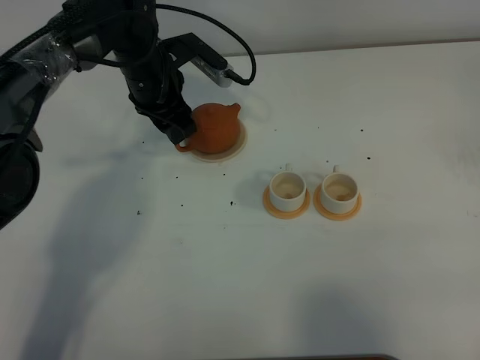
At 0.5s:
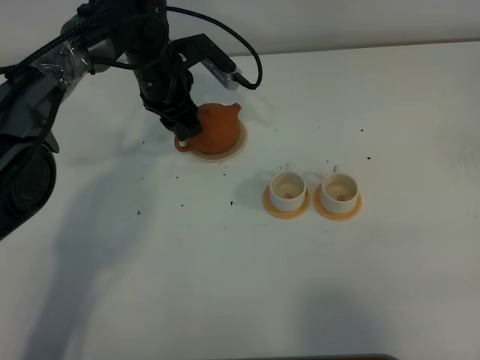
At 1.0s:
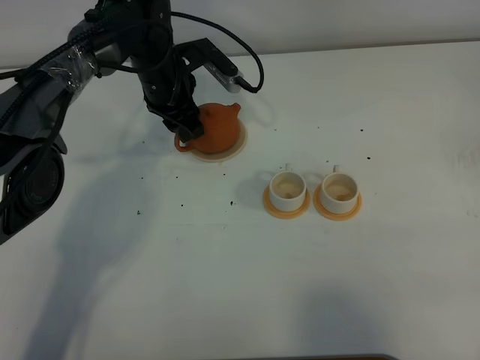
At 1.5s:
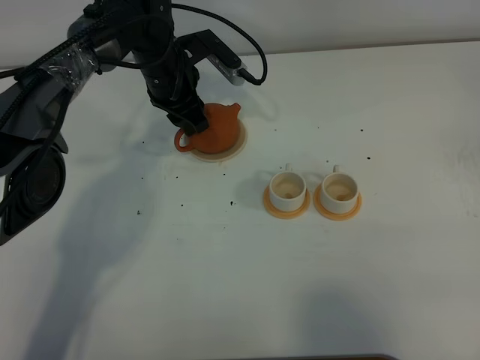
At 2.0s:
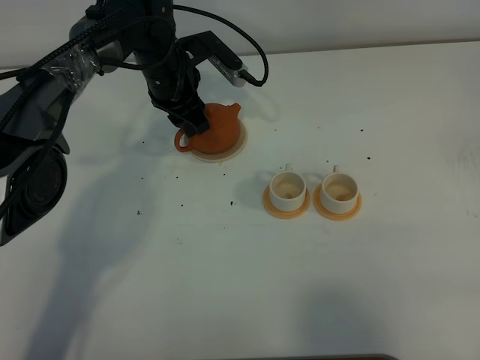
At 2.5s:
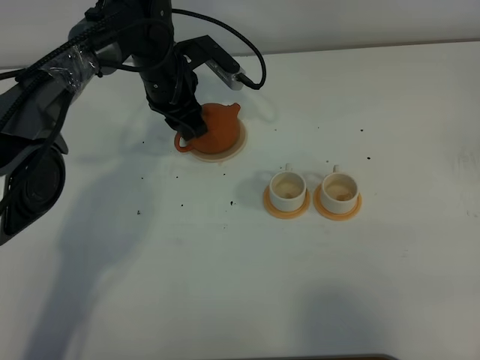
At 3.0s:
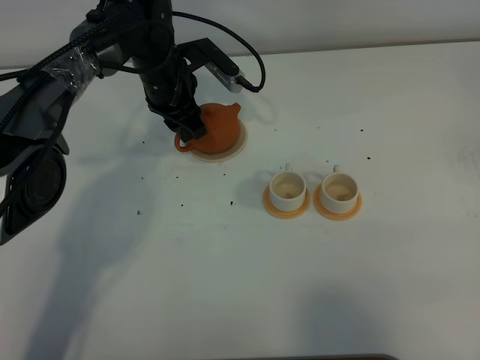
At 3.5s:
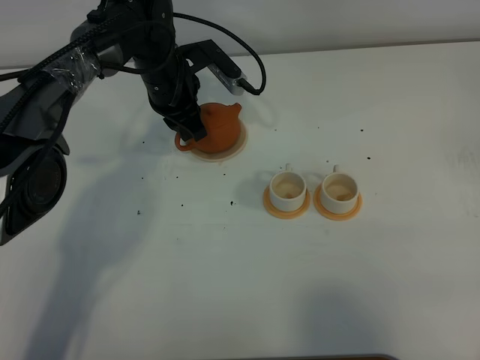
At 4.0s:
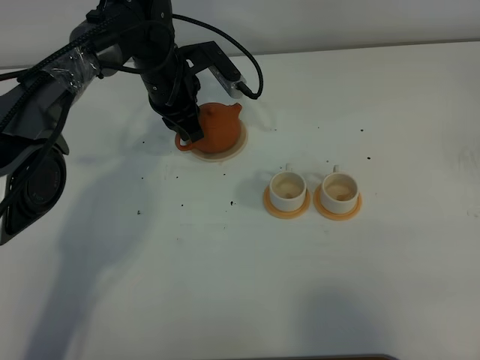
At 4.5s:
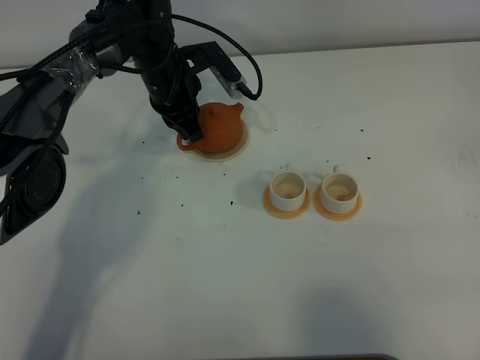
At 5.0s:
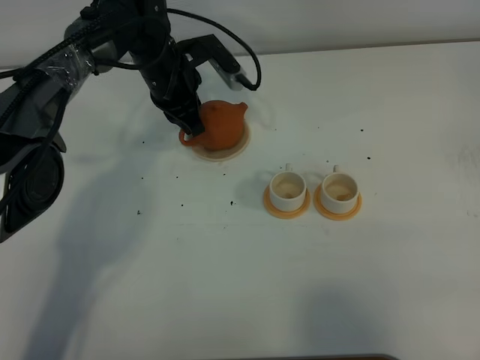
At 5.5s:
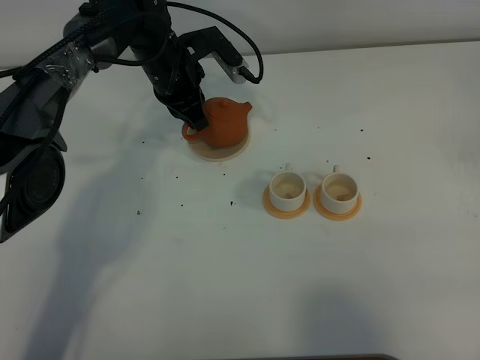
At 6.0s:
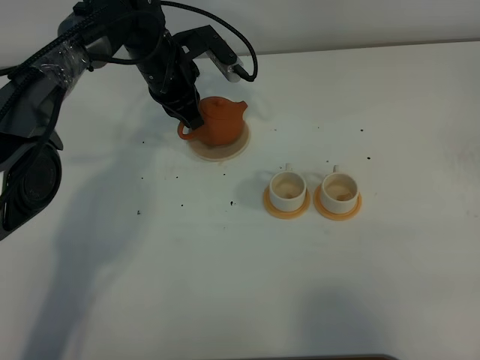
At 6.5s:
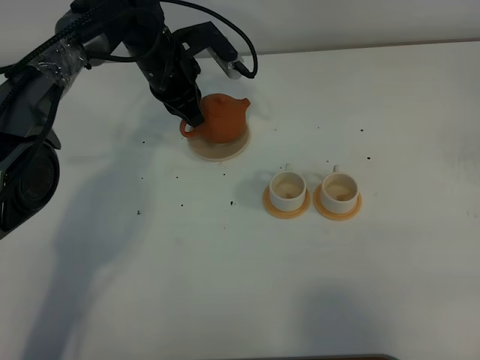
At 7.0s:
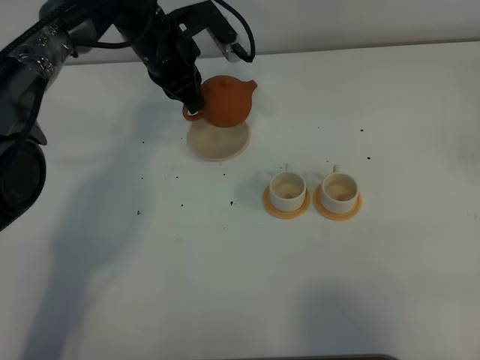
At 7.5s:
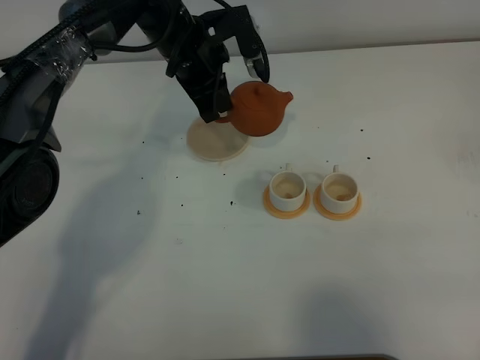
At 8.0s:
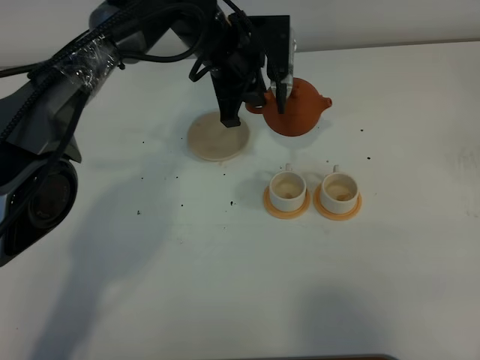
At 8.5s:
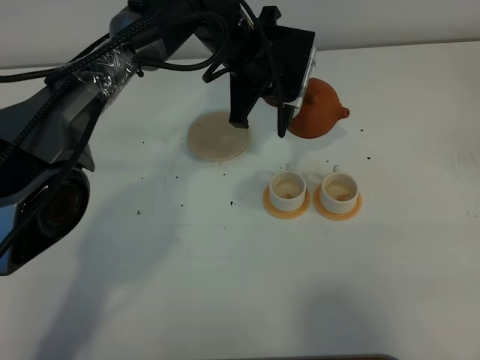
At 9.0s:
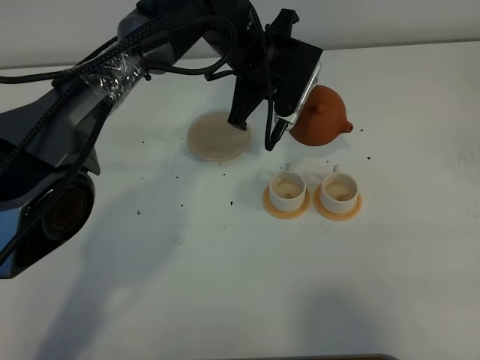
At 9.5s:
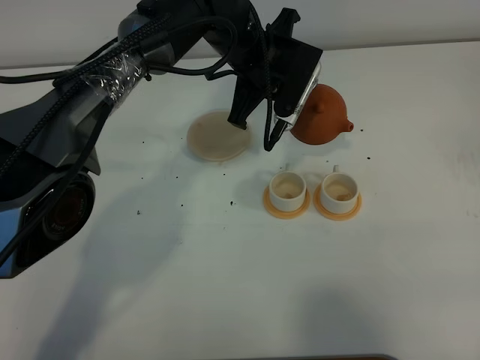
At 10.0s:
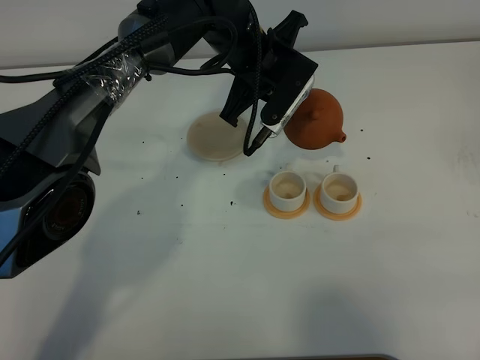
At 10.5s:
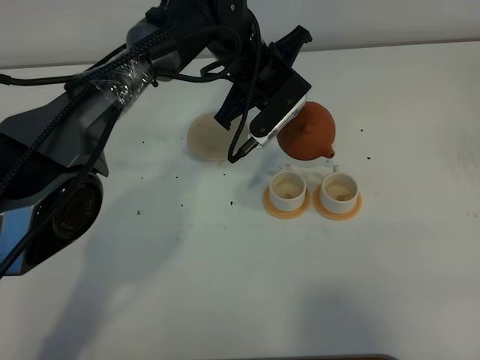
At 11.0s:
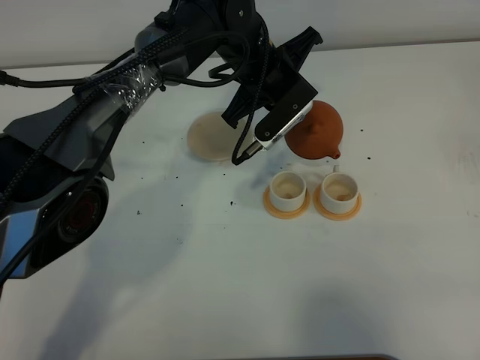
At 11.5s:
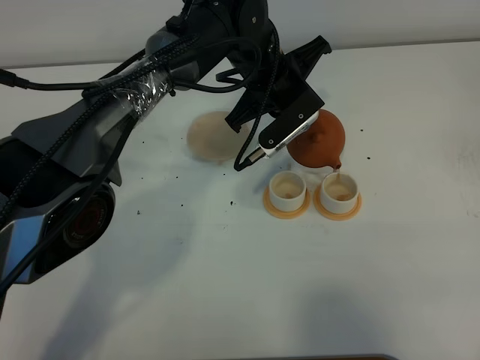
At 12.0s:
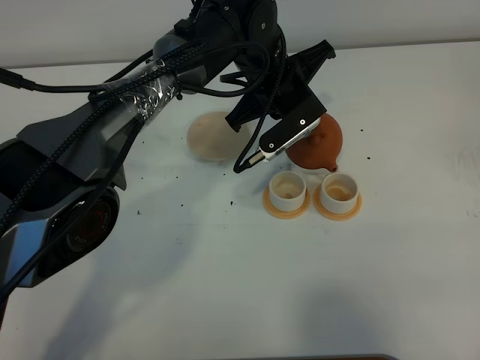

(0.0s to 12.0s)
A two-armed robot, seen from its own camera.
Task of the whole recording: grasp the brown teapot and pour the tea into the two white teacups one by one, put the brown teapot back in its original place.
Step, 0.0s - 6.5s: Pick up the teapot with the left gripper.
0.0s - 2.0s: There are only small adjustments of the grippers.
2.0s - 4.0s: The left gripper closes its fingers.
4.0s - 6.0s: There are only small adjustments of the grippers.
6.0s - 8.0s: The left gripper shifts roughly 10 cm to the right.
10.0s - 12.0s: There are only small adjustments of the grippers.

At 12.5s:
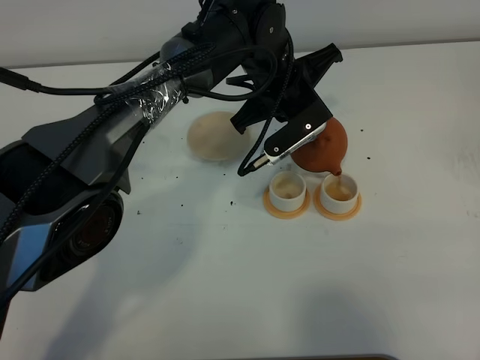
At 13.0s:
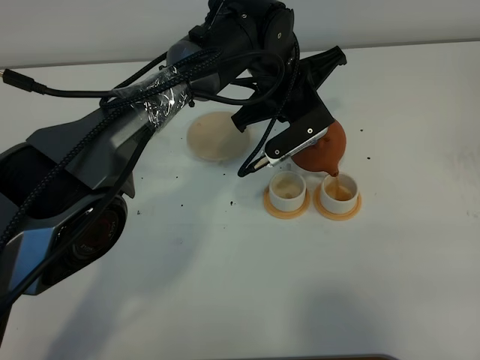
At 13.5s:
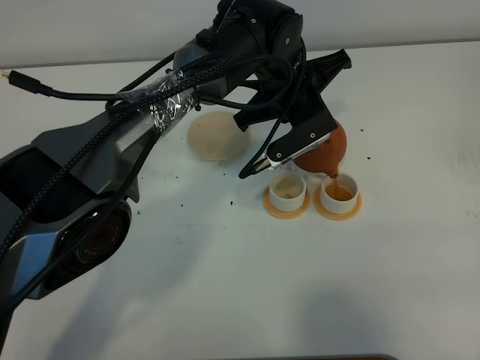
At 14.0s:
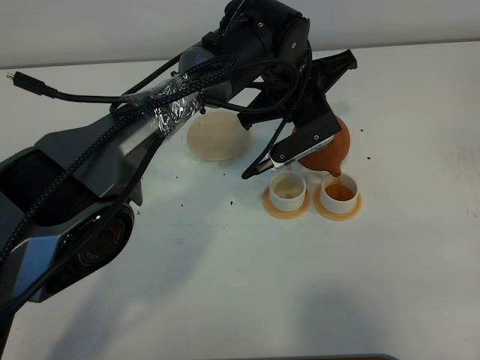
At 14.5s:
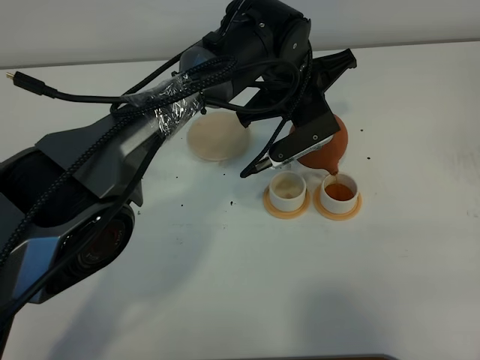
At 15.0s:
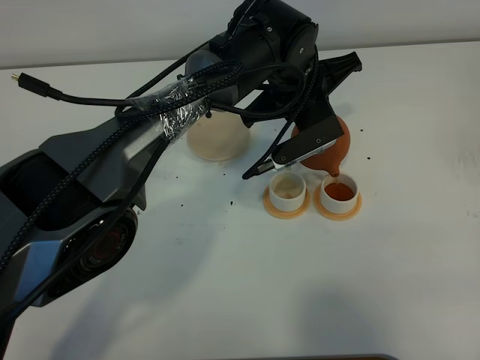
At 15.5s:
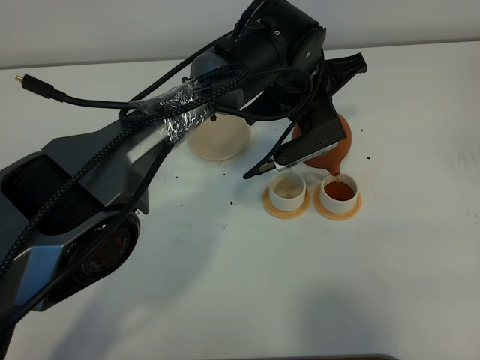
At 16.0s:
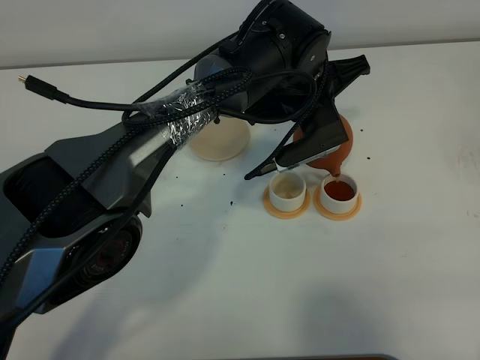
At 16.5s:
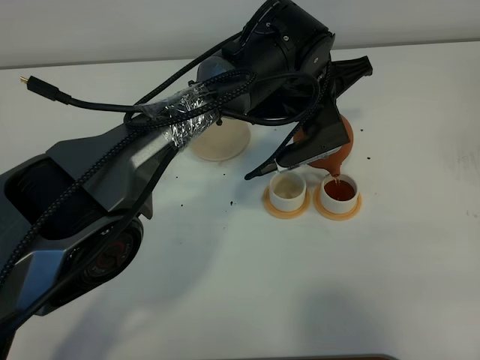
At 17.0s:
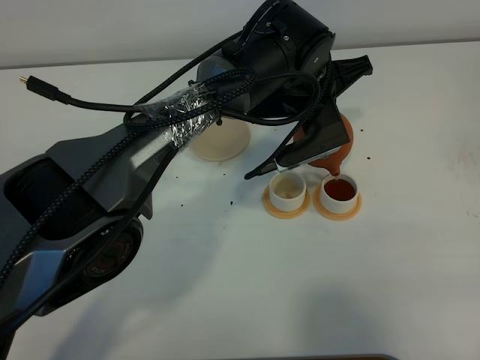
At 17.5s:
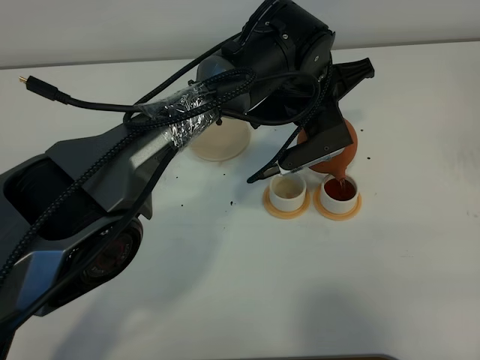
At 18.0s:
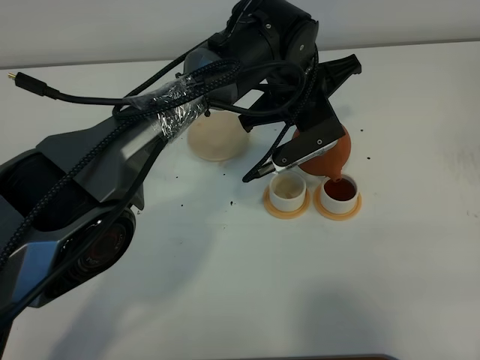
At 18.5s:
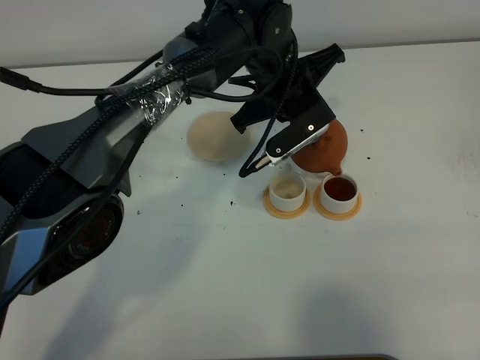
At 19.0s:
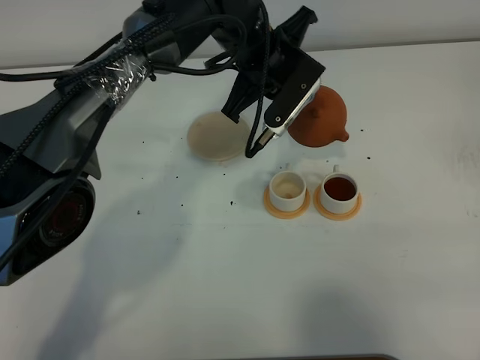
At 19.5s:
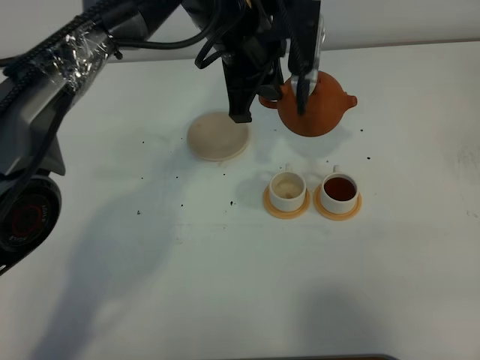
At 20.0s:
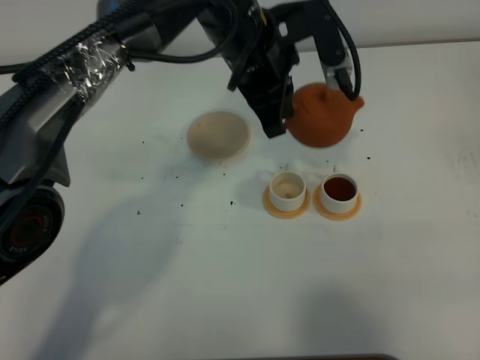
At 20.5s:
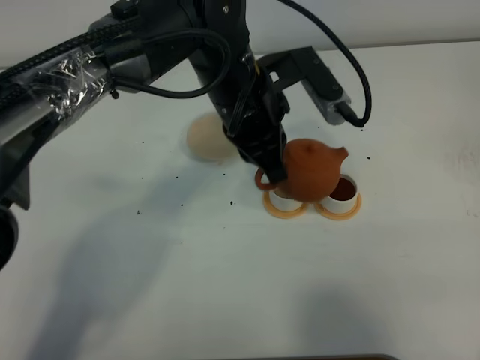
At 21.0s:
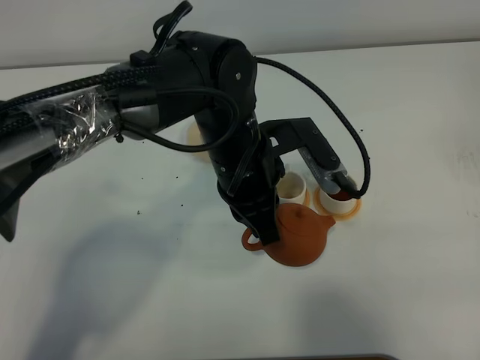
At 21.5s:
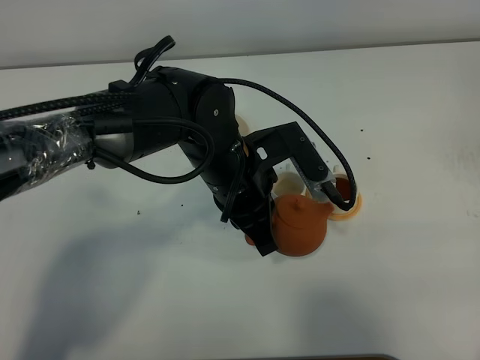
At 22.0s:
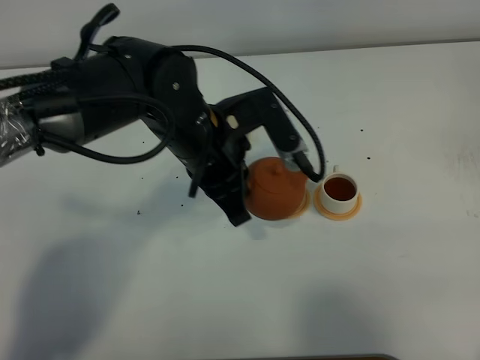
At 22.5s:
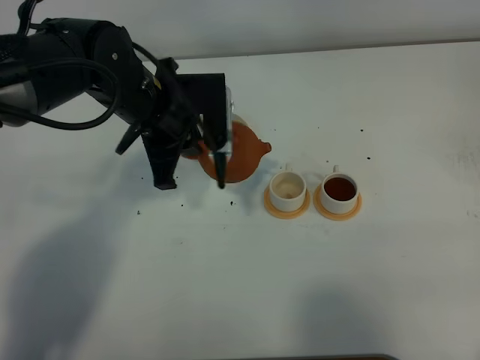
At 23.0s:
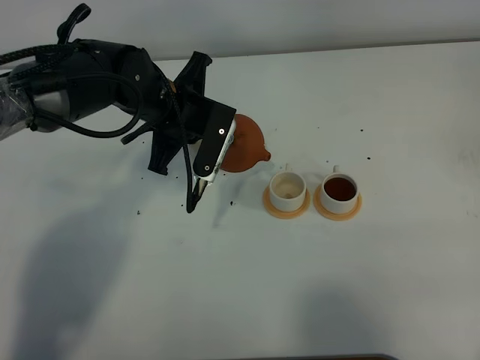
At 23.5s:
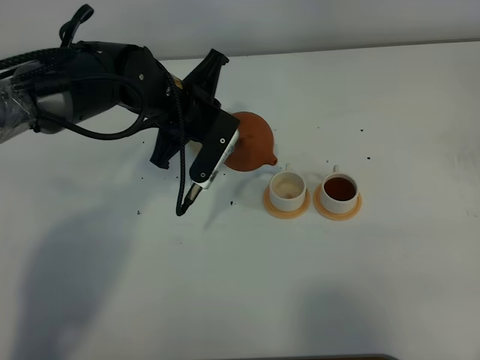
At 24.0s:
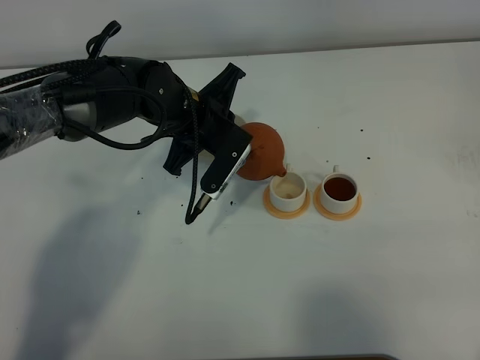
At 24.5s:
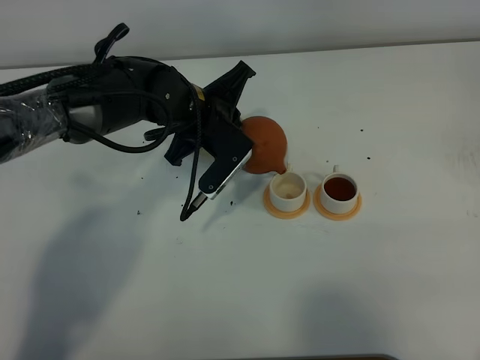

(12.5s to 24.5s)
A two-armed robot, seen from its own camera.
Task of the whole recording: grasp the brown teapot and pour the tea into the two white teacups one by one, put the brown teapot back in its original place.
Step, 12.5s - 18.5s: Pour tea into the teacup with the left gripper.
12.5s - 16.5s: The grippers move only a little.
18.5s - 20.5s: The left gripper shifts approximately 10 cm backward.
20.5s - 22.5s: The left gripper travels to the left by about 10 cm.
22.5s - 24.5s: The left gripper changes place by roughly 5 cm.

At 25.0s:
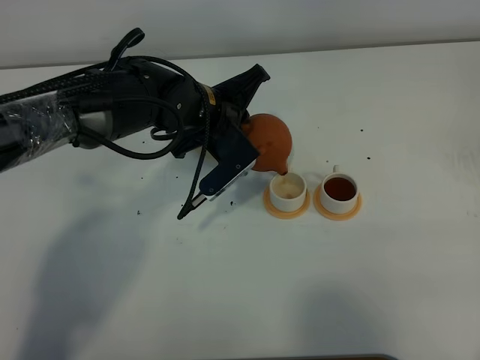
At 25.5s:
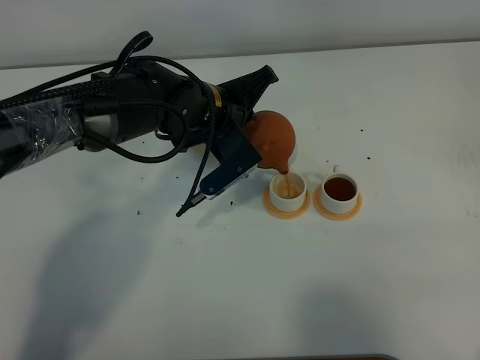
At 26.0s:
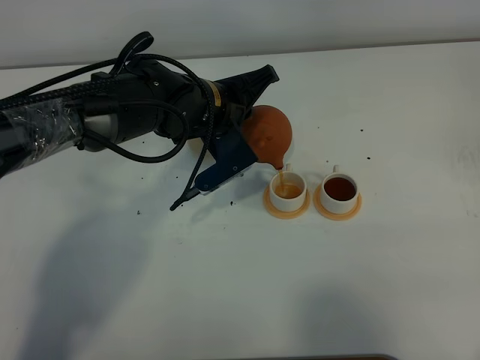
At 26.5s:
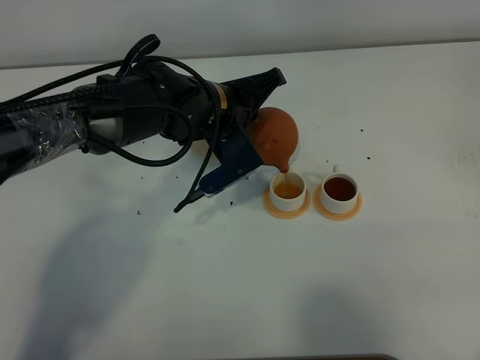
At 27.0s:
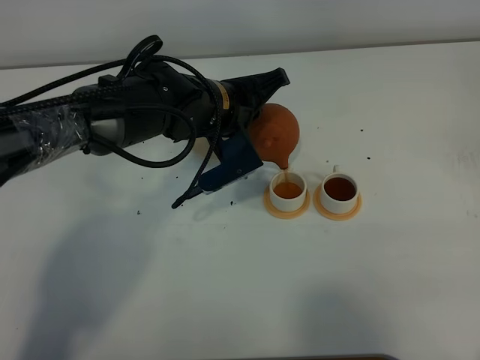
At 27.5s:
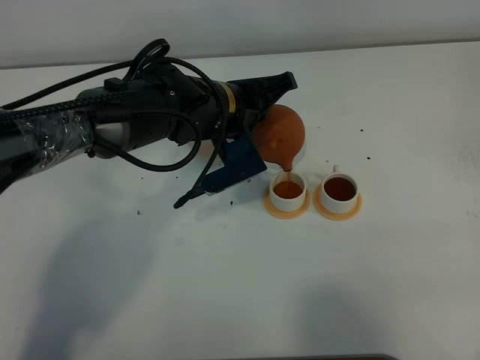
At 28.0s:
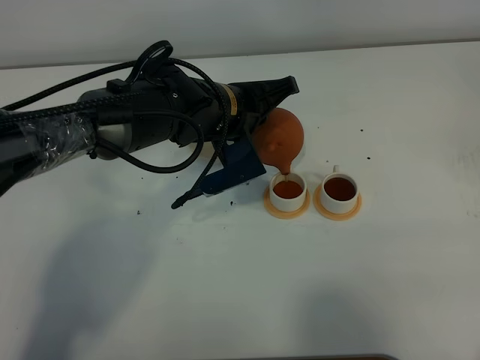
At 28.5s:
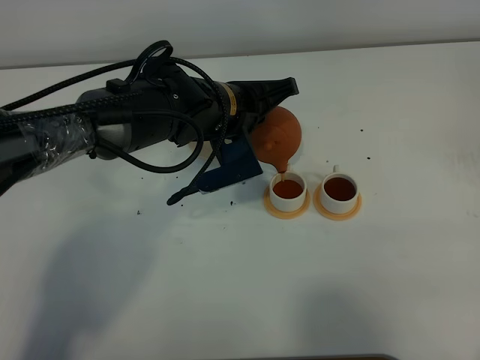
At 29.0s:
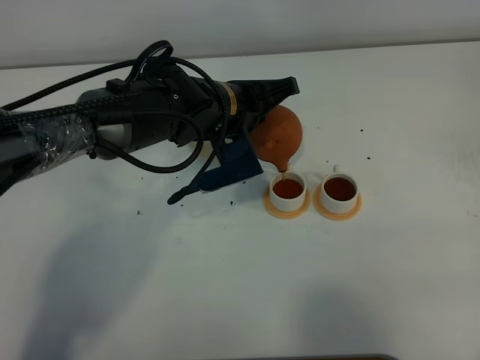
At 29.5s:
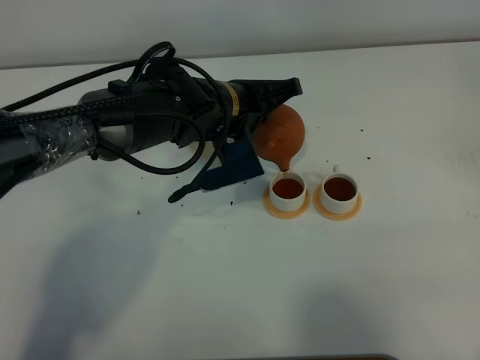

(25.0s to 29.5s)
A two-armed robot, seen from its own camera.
Task of the whole recording: grasp the brown teapot and pour the tea into the two white teacups one by one, put the brown teapot back in its original place.
25.0s - 27.0s: The grippers make only small movements.
27.0s - 29.5s: The grippers make only small movements.
